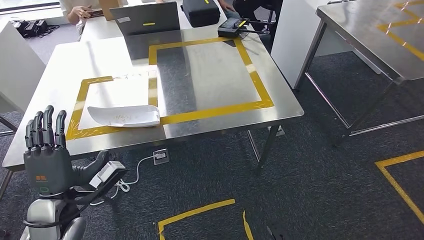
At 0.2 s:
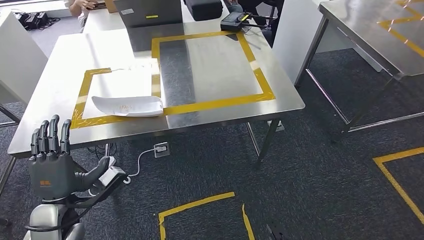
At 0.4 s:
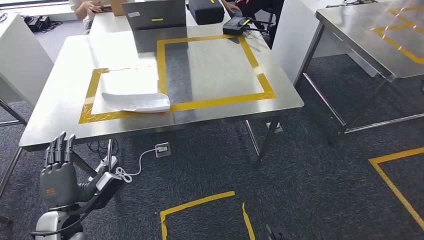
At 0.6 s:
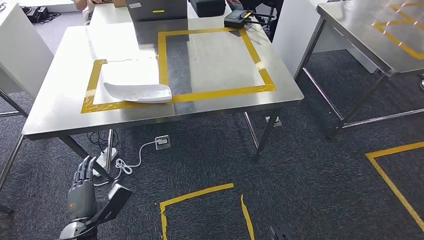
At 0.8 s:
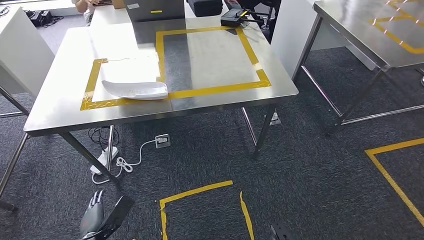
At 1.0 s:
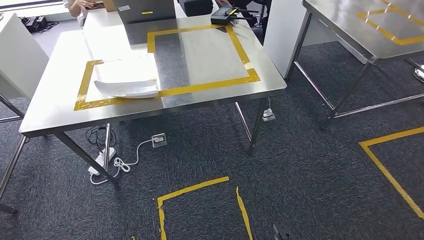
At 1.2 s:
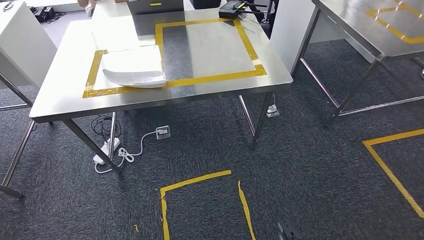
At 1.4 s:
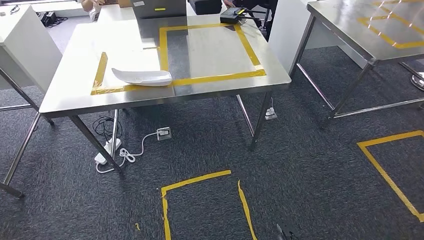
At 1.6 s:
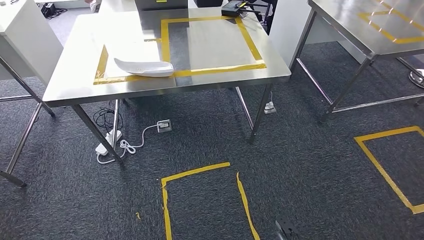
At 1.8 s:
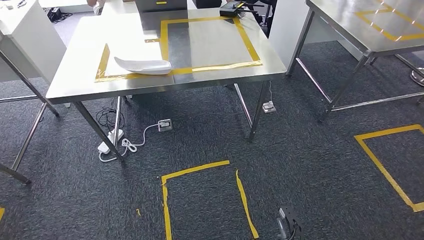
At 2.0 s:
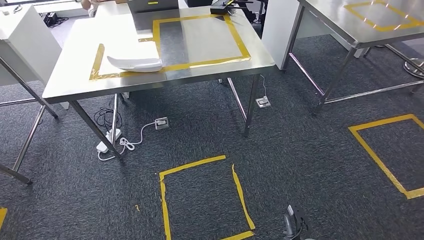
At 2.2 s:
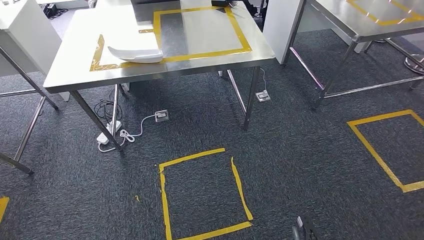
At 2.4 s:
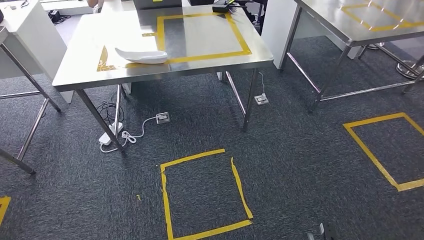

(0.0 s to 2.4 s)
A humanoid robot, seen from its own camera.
Step, 0.0 s - 2.4 s: Move to the initial position at the workbench.

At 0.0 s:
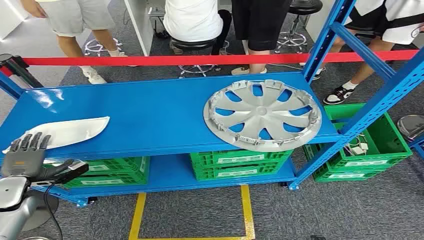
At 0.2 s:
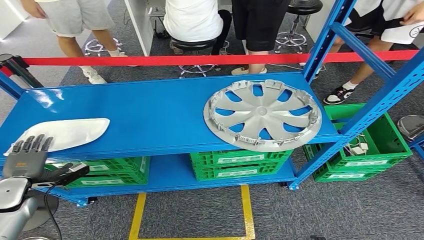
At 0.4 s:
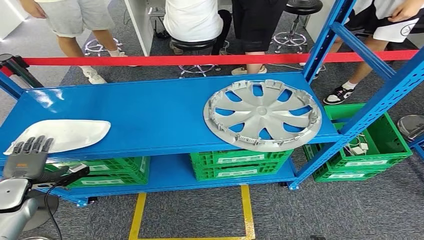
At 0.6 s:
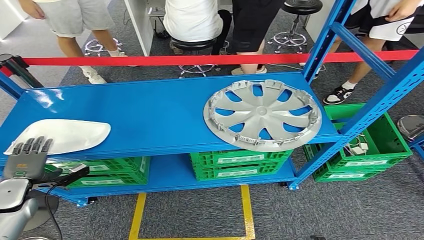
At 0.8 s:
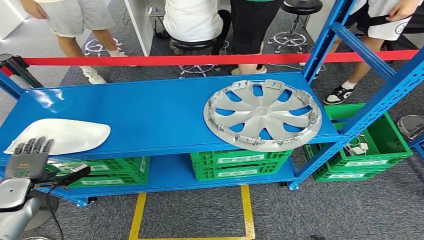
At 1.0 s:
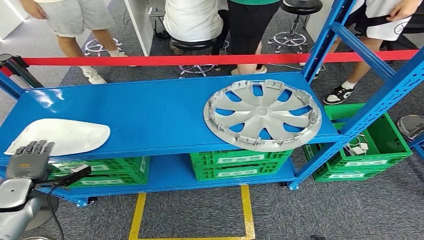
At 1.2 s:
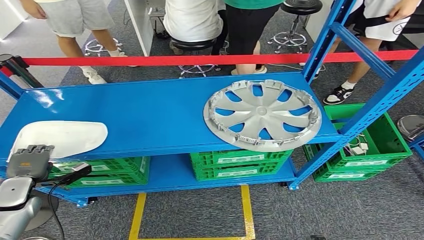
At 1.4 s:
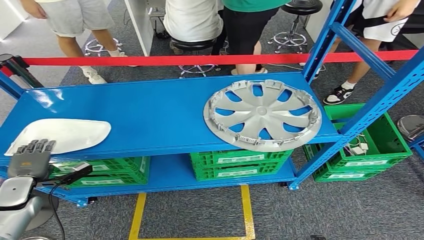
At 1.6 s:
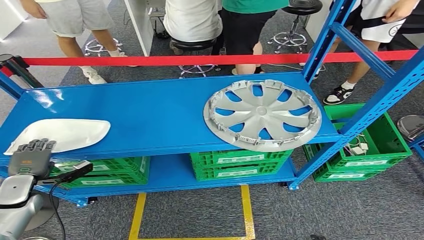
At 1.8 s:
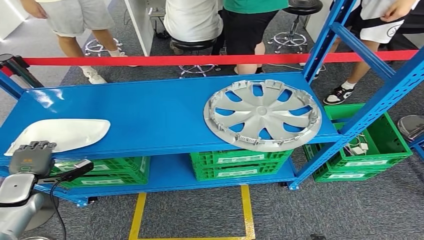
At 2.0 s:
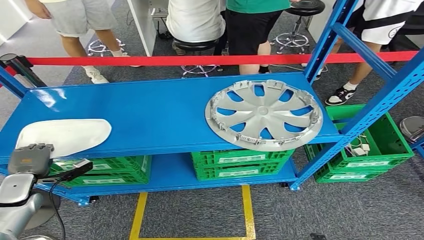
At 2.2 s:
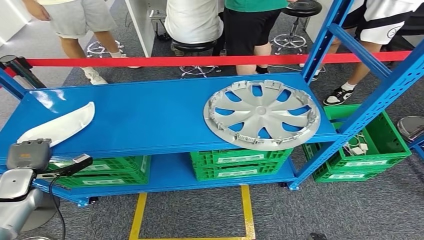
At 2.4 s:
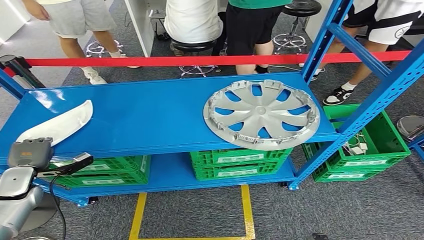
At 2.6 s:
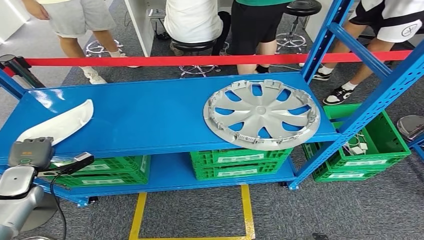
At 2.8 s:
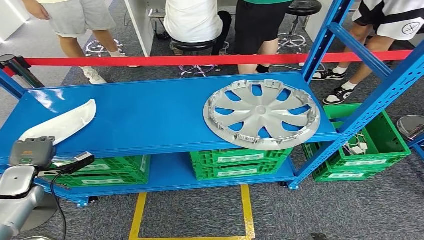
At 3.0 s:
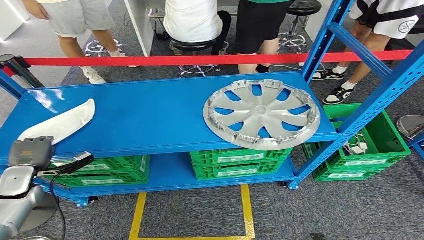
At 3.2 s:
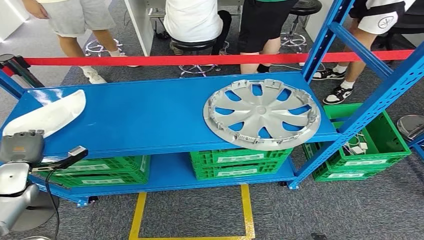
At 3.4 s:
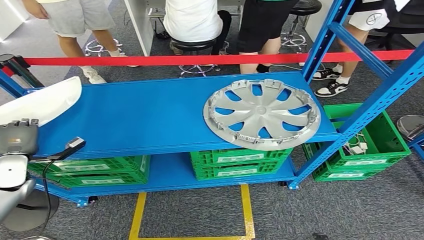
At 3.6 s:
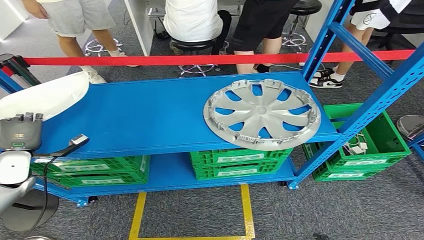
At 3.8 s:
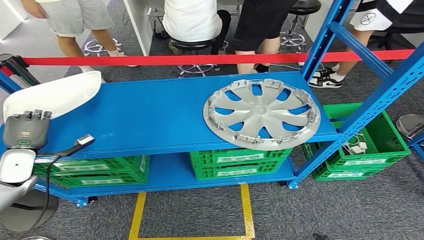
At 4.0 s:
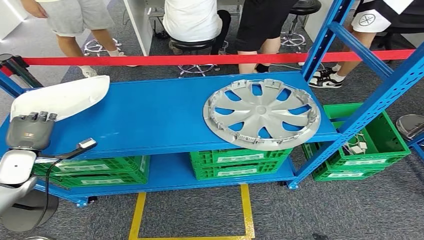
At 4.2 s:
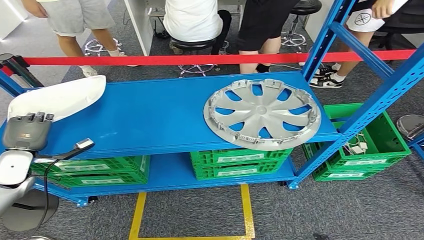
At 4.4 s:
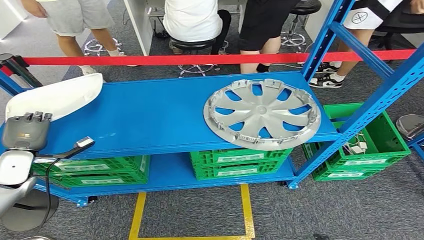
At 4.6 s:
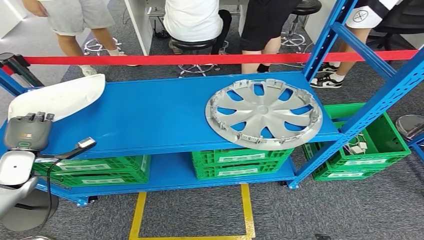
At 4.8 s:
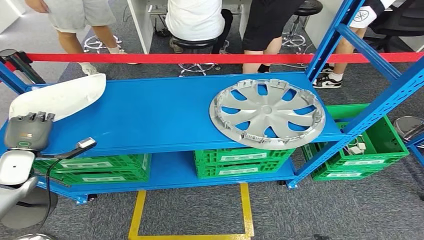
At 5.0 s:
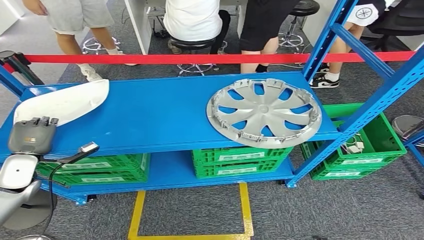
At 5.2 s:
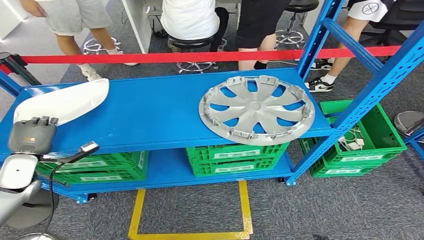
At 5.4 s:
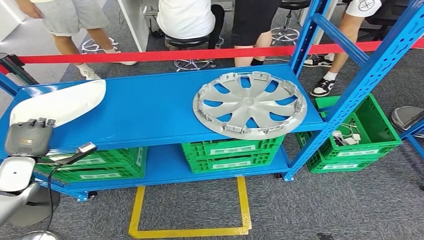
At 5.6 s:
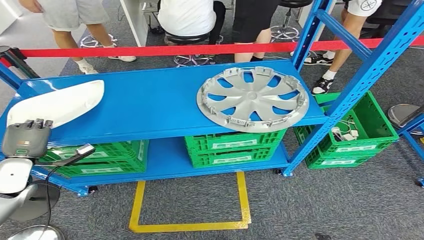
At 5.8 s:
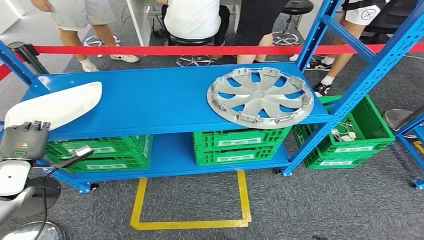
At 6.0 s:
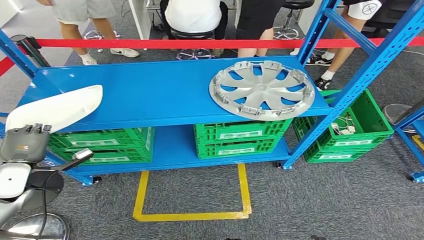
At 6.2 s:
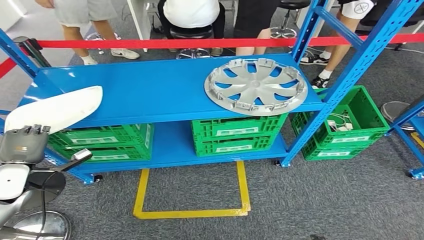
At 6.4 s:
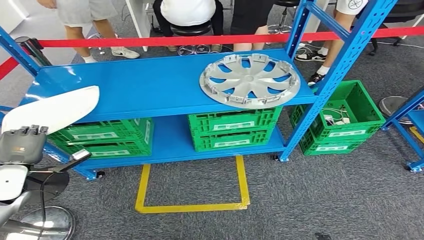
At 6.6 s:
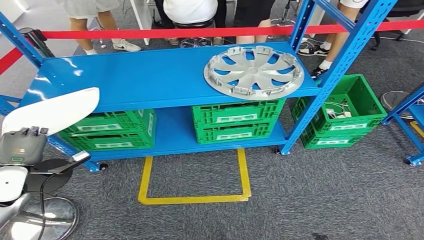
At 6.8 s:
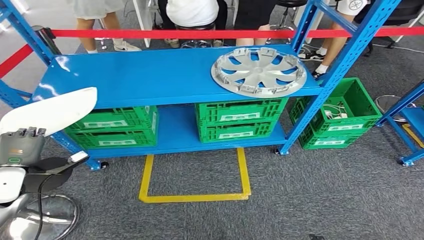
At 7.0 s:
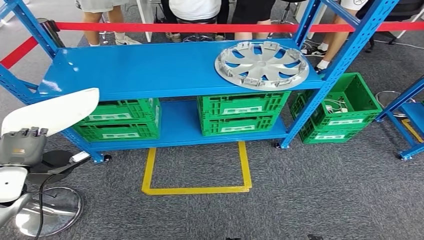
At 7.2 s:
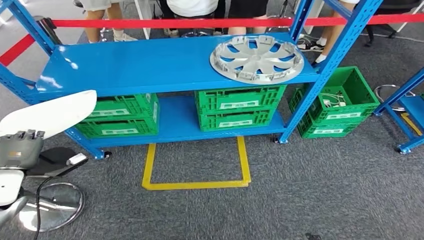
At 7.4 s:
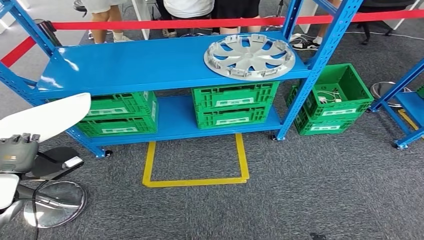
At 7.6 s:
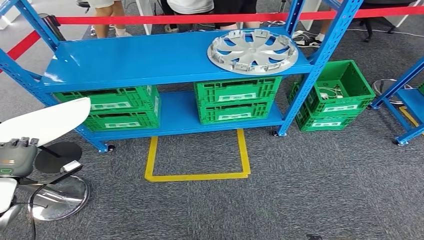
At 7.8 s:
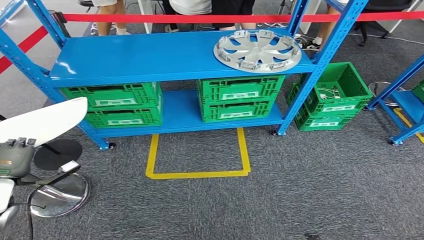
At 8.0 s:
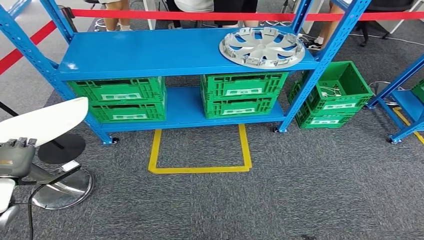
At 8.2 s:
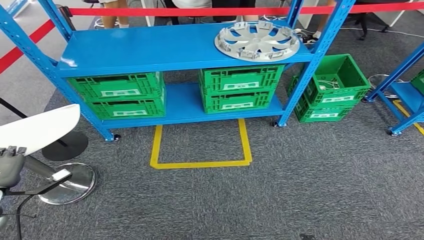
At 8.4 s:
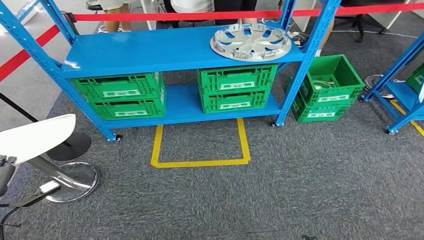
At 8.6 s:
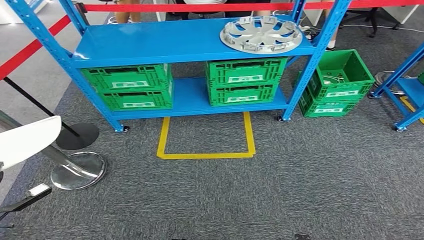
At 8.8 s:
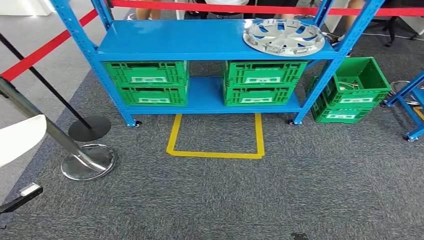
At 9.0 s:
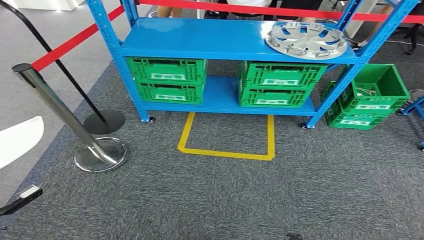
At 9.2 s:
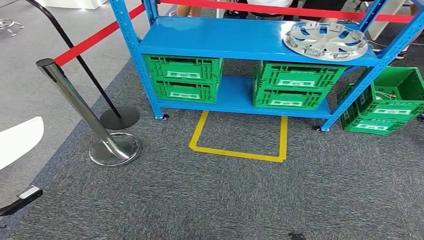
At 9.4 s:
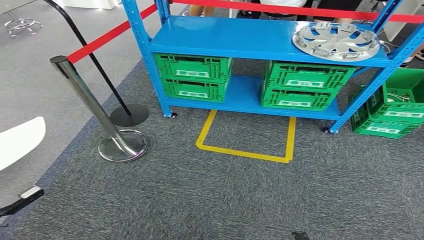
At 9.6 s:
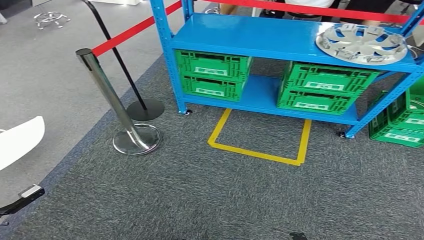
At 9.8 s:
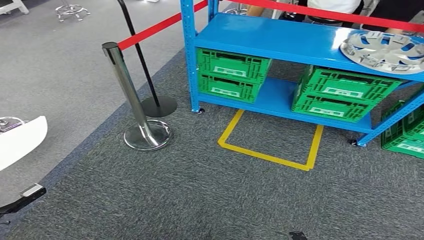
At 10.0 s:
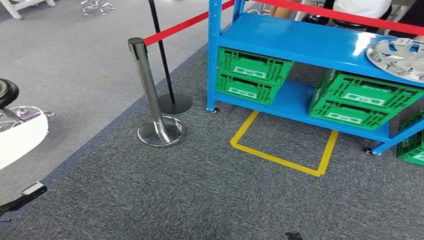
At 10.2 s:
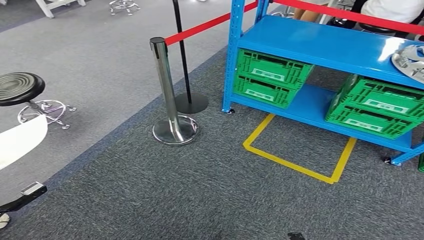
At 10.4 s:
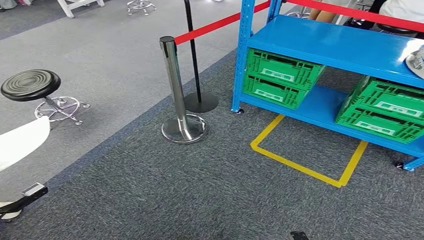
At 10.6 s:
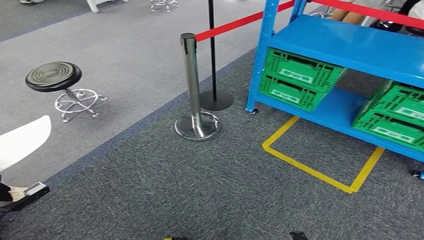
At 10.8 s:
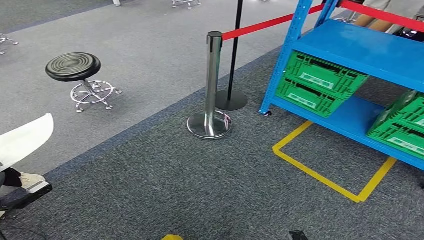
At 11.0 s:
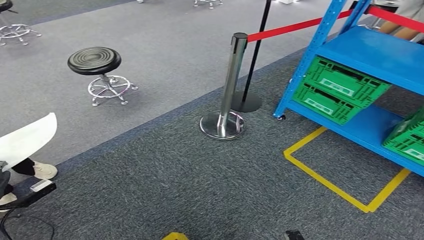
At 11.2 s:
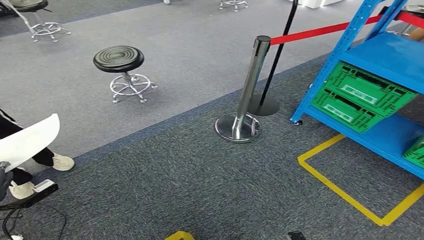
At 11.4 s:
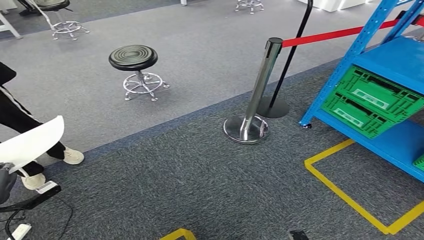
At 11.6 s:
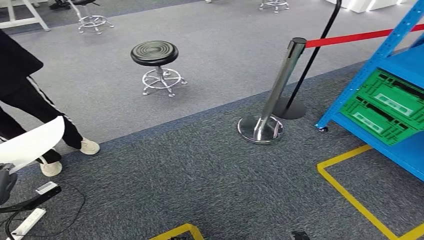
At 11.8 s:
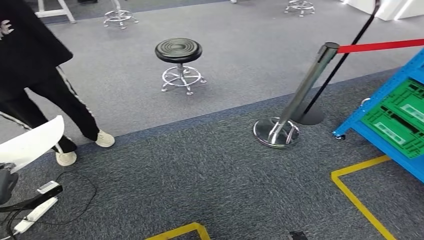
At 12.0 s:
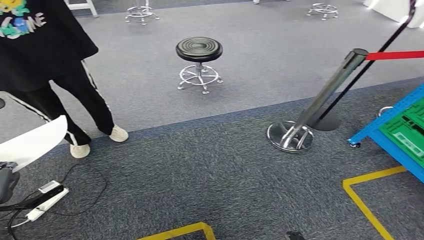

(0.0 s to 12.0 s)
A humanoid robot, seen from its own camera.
Step, 0.0 s - 4.0 s: Pick up the small parts from the shelf.
1.6 s - 3.0 s: There are only small adjustments of the hands.

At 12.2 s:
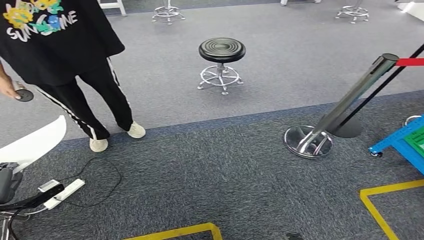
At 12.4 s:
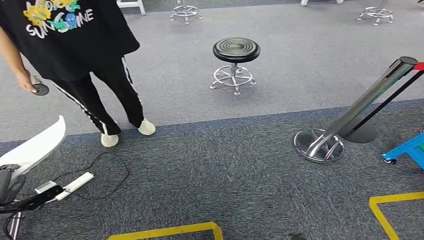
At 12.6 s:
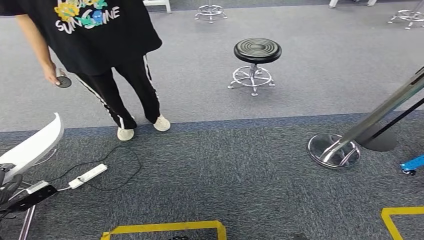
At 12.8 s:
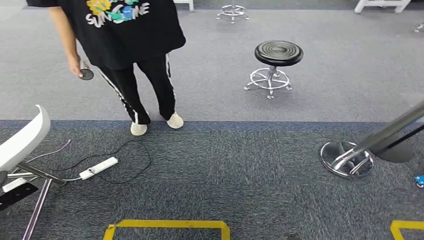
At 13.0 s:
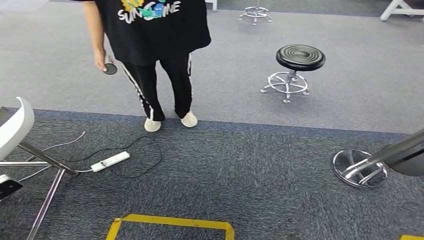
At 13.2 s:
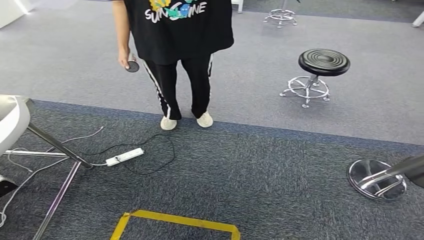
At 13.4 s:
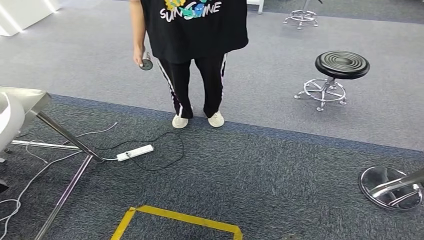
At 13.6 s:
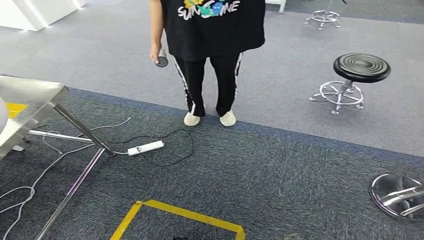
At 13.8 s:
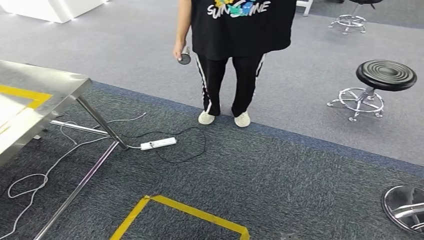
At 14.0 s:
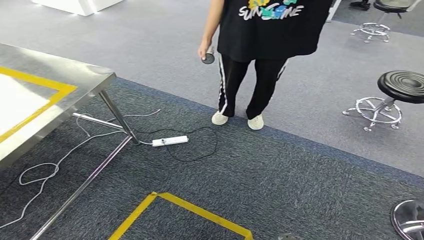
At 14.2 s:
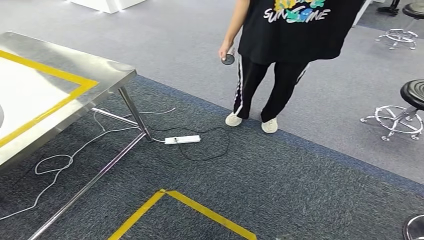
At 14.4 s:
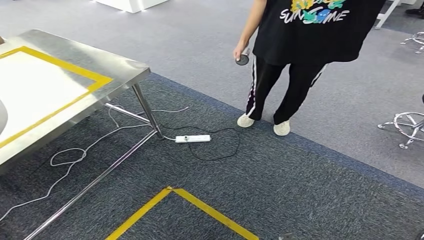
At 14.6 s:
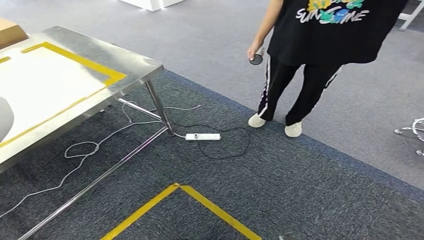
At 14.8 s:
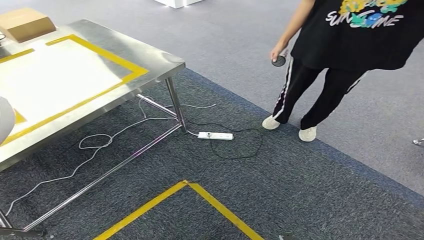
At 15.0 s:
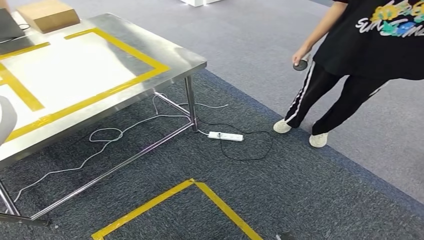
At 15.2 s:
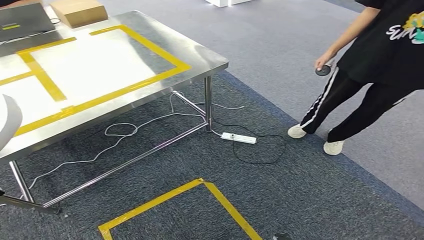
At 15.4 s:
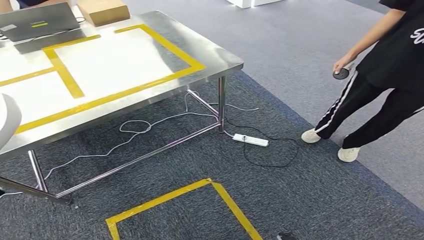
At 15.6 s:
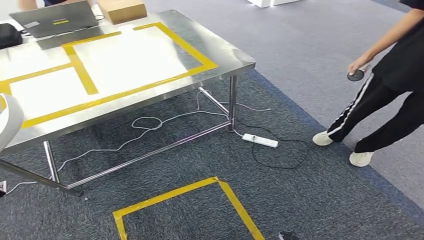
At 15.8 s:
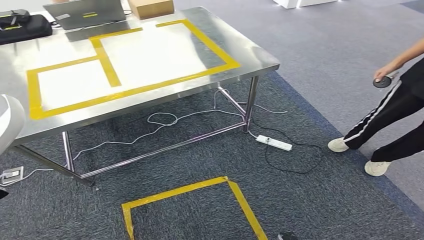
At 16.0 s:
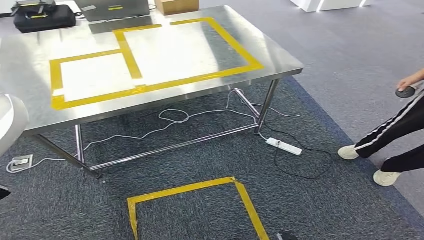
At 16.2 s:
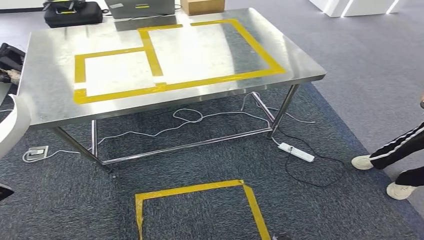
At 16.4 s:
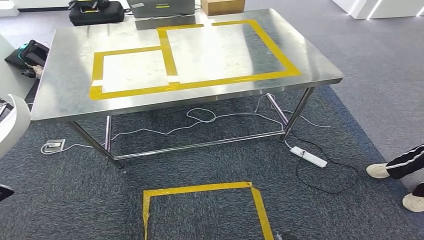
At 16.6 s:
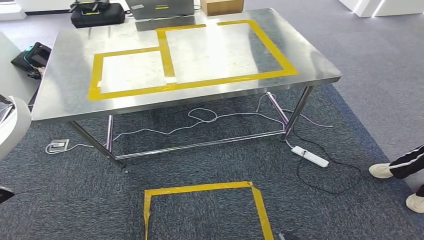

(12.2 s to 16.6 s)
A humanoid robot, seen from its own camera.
Step, 12.2 s - 16.0 s: Move the small parts to the workbench.
